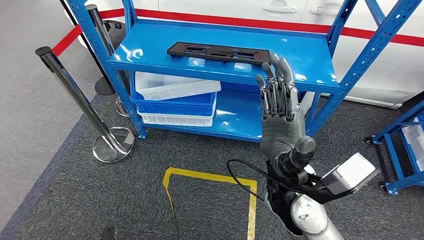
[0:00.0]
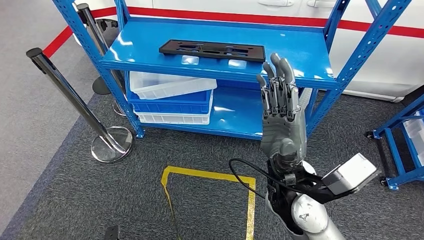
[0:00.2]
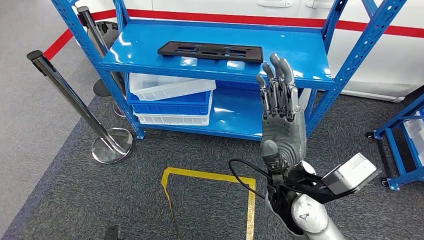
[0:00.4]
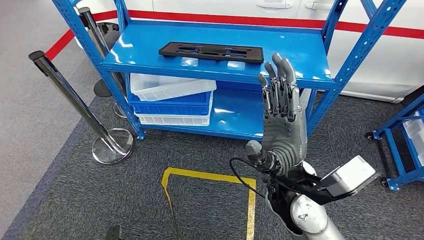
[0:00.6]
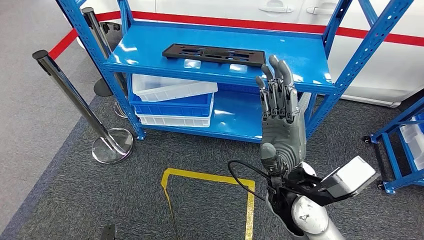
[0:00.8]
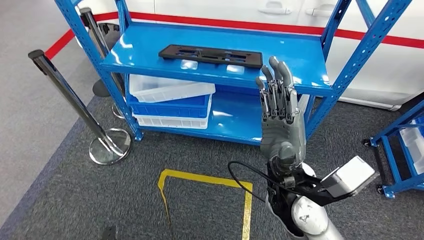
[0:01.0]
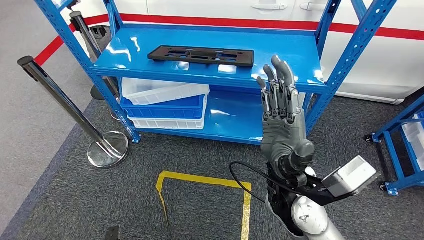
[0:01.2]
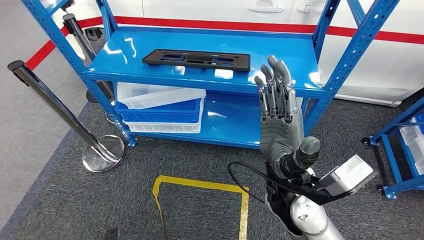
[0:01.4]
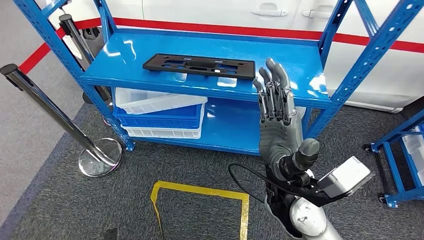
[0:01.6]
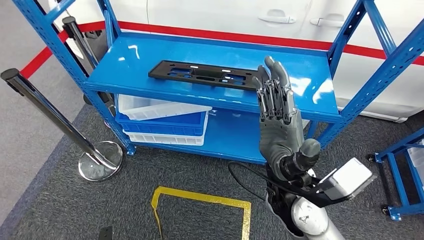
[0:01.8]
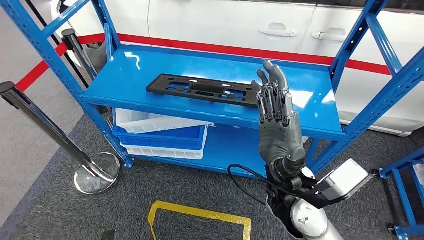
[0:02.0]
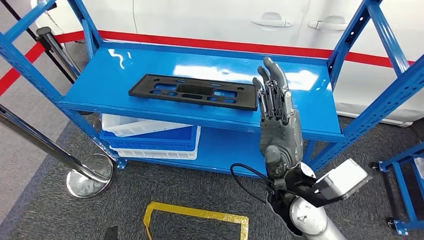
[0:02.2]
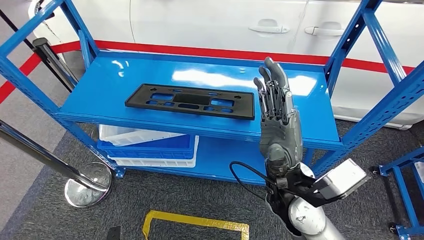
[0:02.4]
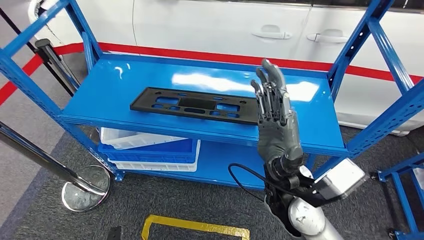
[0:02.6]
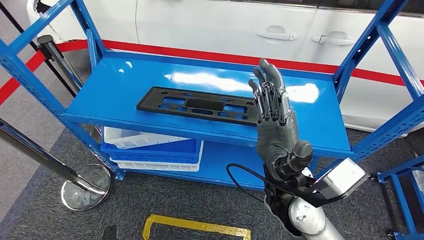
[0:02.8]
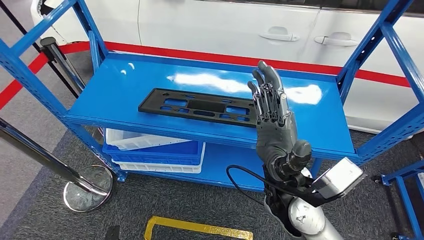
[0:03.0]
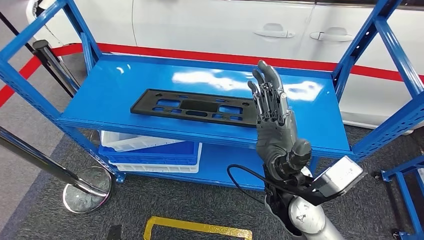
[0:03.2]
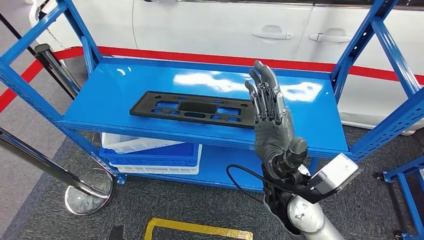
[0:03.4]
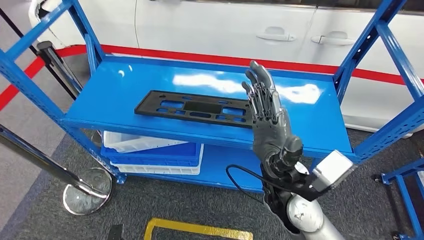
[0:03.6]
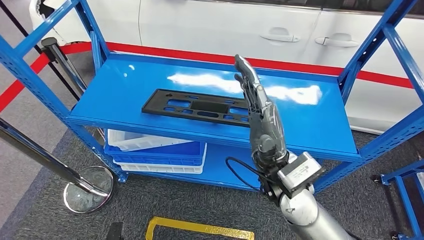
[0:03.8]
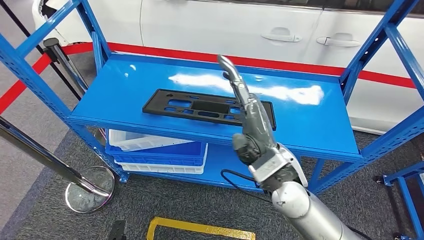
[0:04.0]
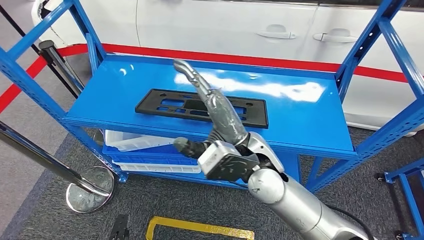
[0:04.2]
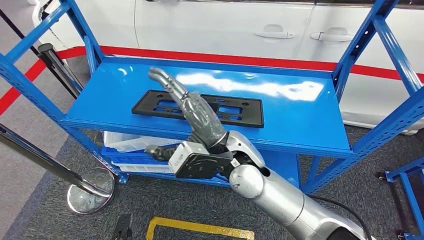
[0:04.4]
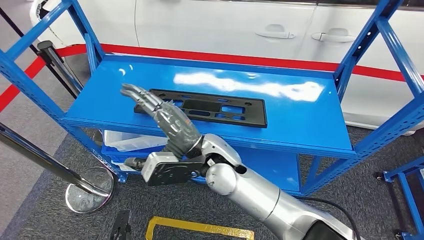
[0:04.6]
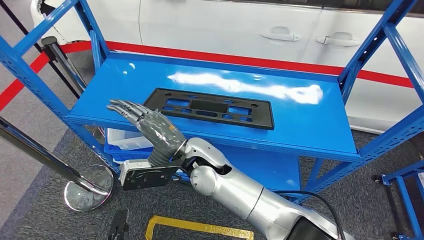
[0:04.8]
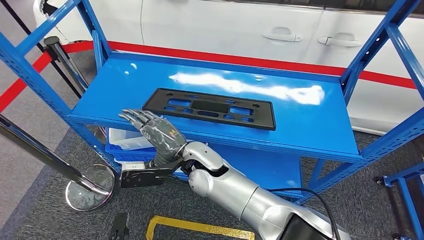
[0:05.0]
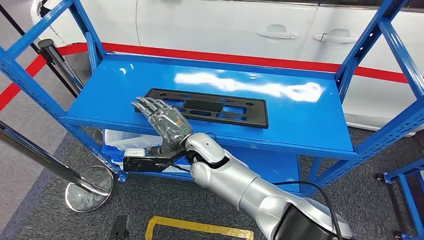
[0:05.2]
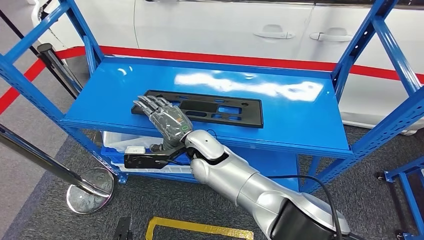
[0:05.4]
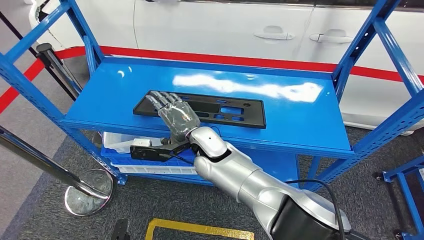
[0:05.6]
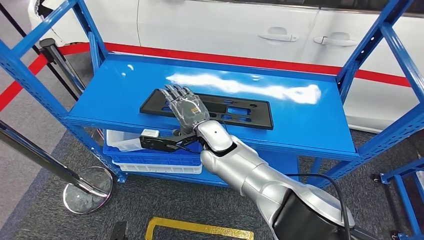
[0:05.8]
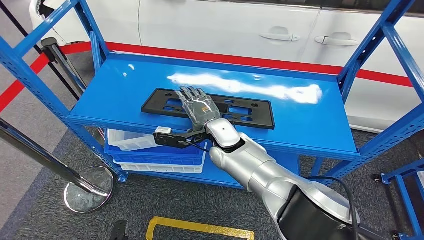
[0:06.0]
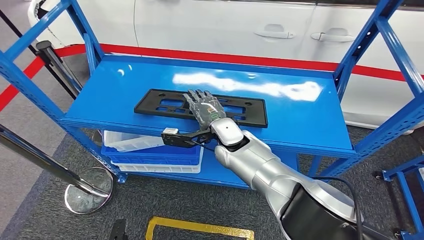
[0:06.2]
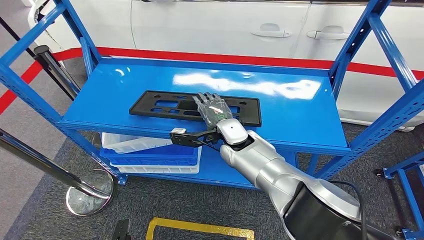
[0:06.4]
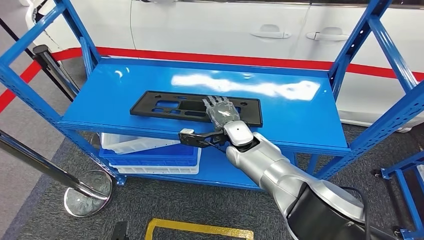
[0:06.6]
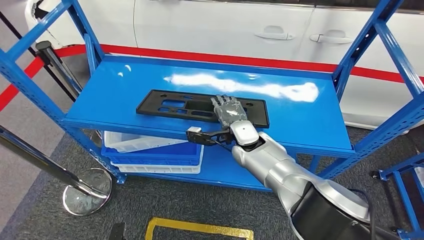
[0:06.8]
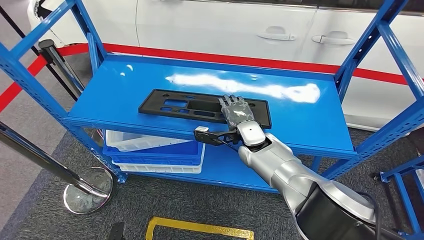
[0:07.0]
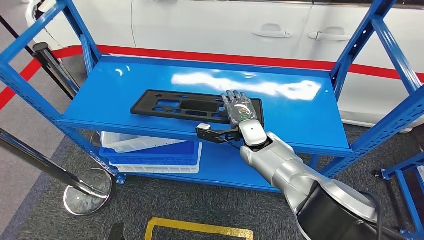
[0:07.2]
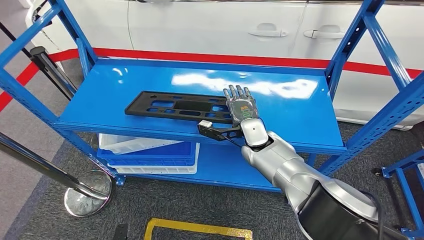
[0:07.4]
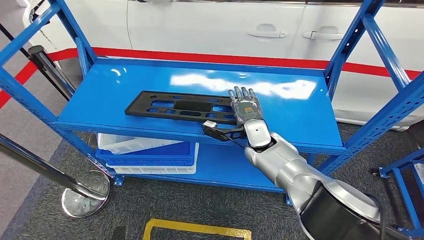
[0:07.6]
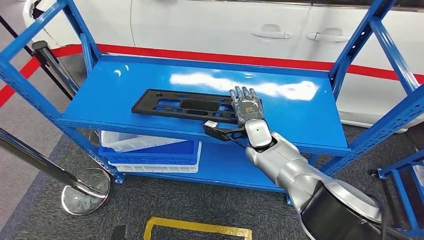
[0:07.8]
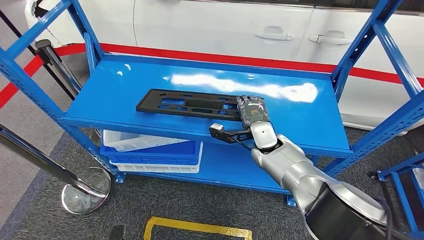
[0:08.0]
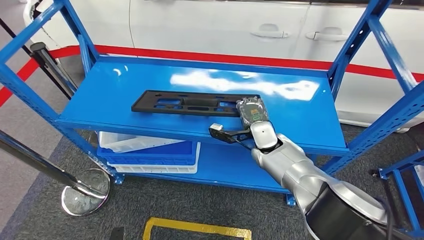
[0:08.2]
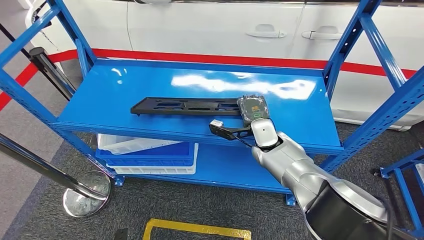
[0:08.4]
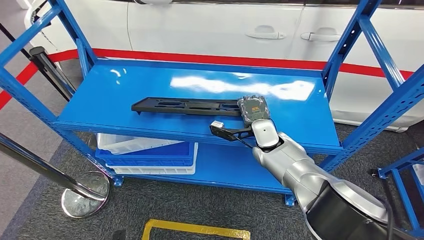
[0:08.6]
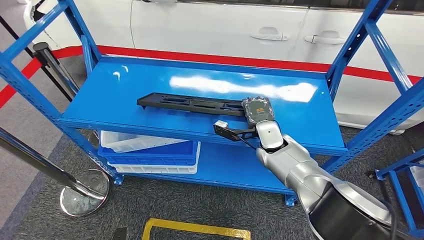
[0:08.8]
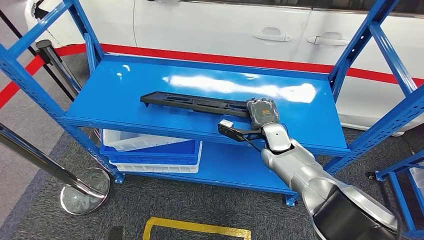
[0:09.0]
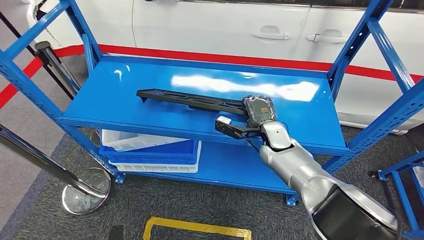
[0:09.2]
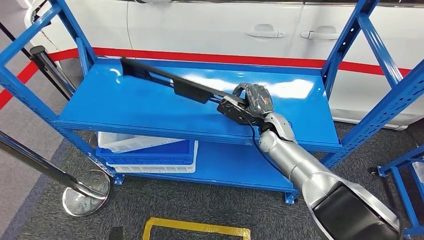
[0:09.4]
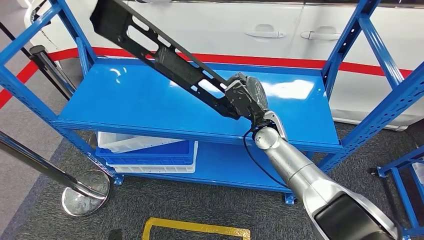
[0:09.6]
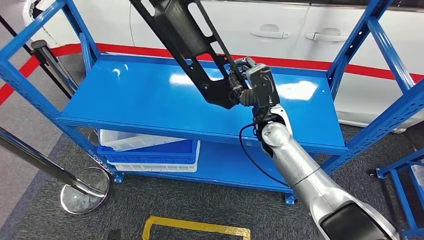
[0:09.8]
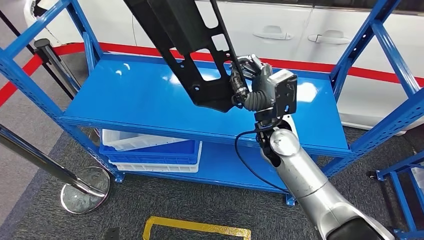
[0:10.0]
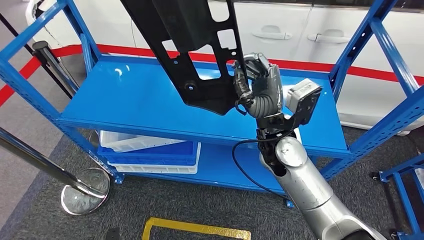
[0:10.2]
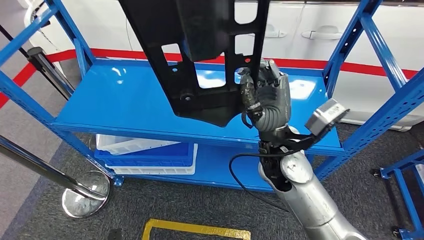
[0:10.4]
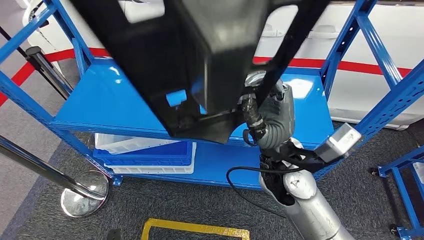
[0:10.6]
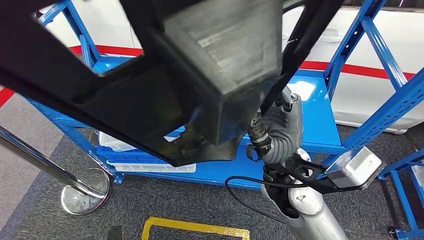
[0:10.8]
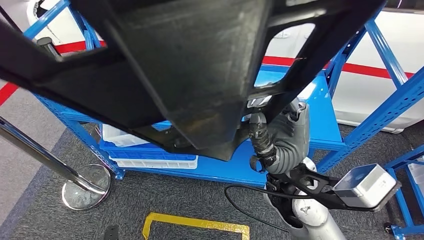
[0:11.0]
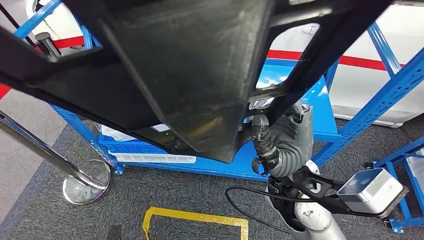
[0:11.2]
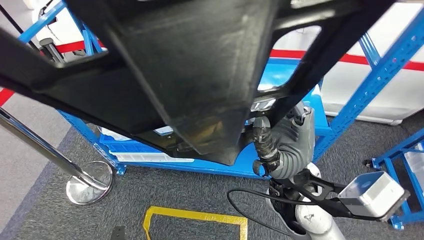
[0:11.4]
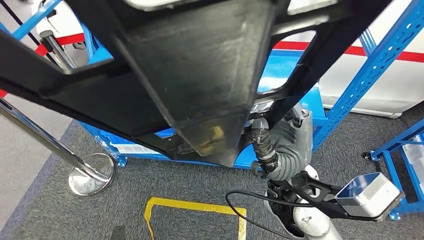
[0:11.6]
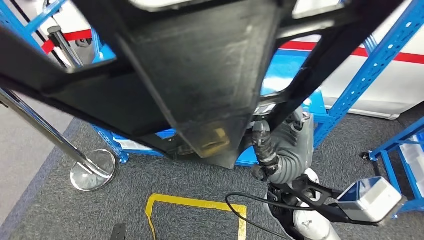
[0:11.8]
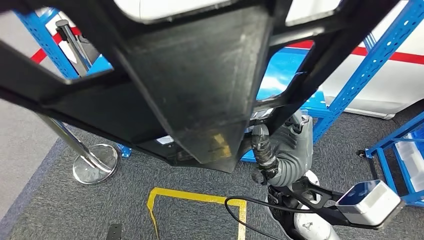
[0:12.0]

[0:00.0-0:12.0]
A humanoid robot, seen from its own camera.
Step, 0:00.0 to 0:11.2: Pick up the large material from the shelf.

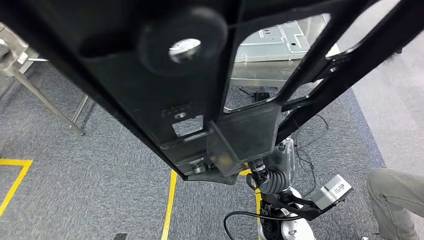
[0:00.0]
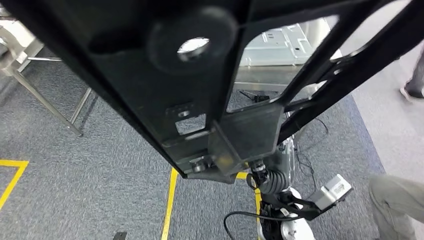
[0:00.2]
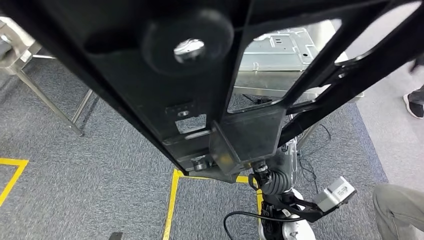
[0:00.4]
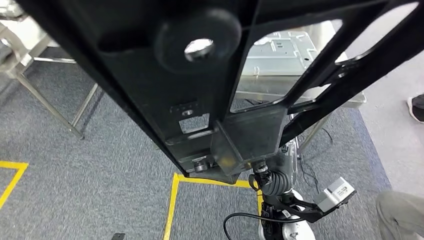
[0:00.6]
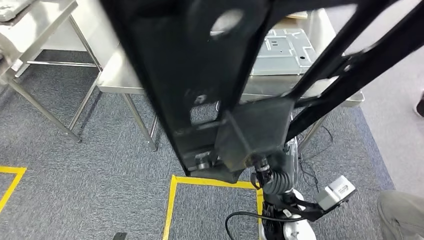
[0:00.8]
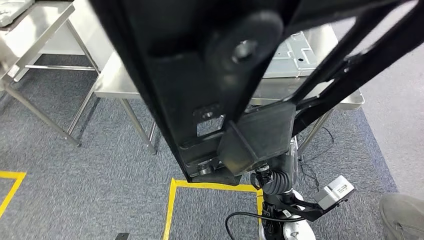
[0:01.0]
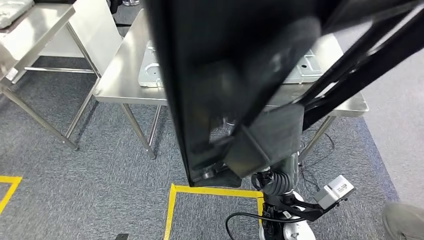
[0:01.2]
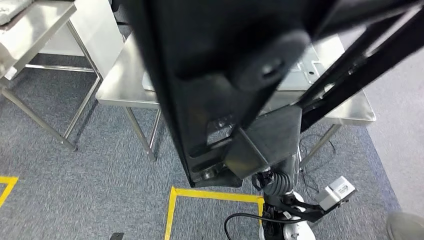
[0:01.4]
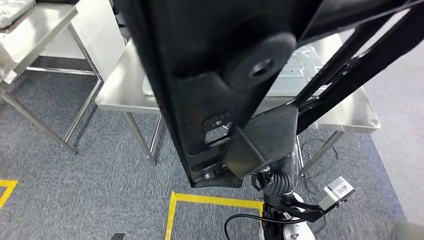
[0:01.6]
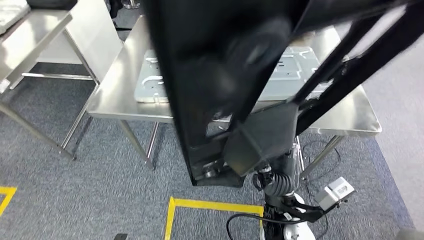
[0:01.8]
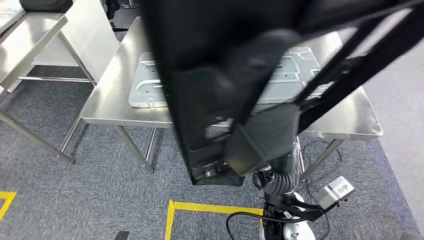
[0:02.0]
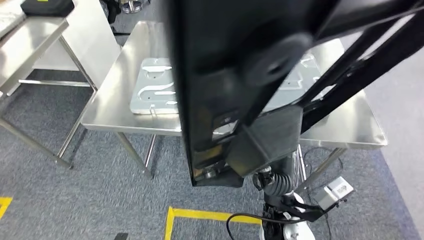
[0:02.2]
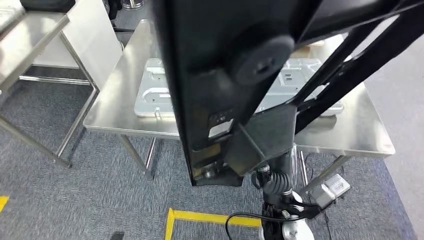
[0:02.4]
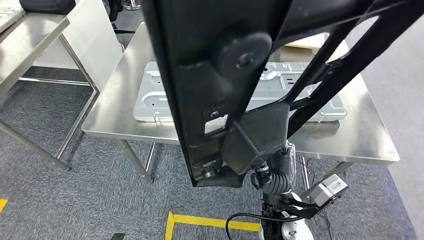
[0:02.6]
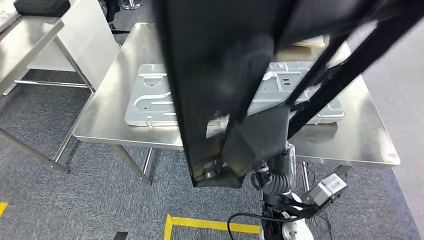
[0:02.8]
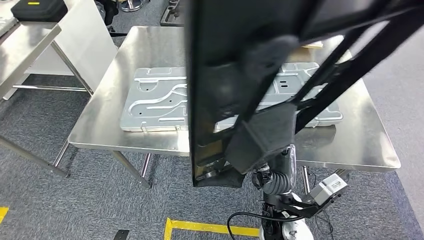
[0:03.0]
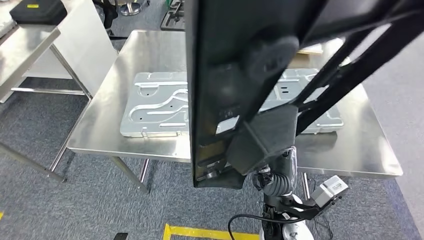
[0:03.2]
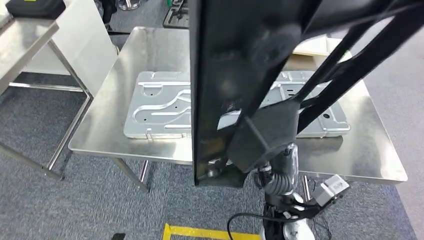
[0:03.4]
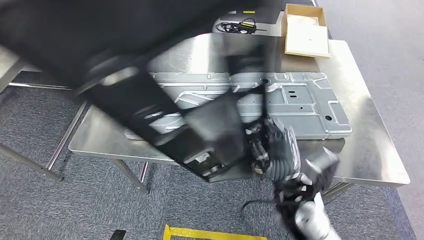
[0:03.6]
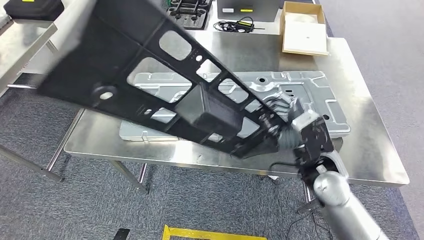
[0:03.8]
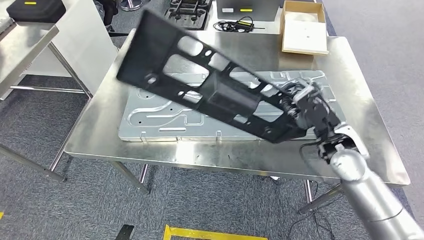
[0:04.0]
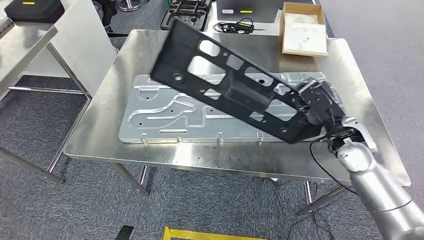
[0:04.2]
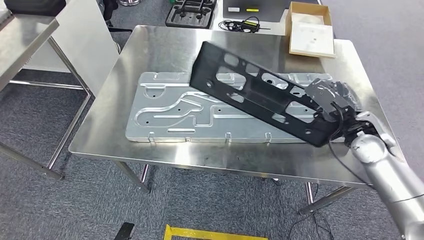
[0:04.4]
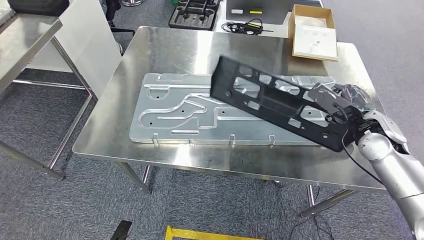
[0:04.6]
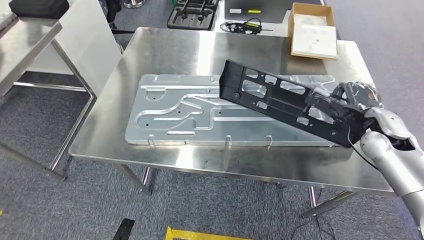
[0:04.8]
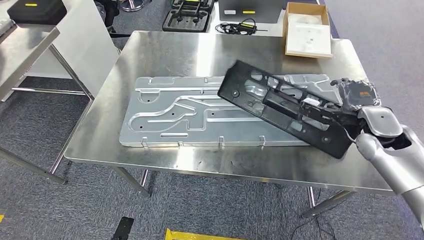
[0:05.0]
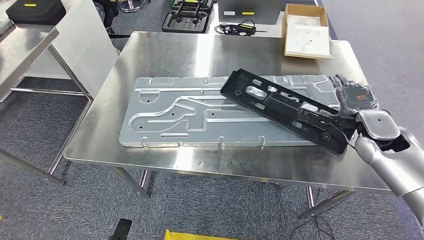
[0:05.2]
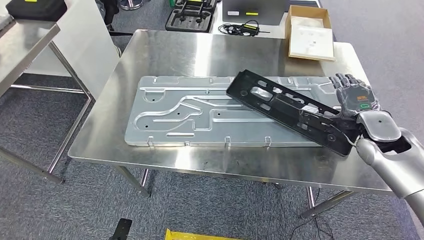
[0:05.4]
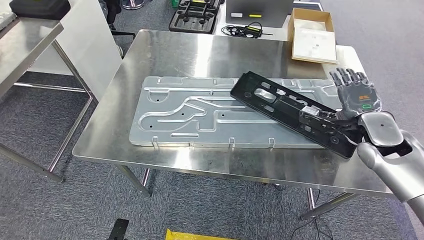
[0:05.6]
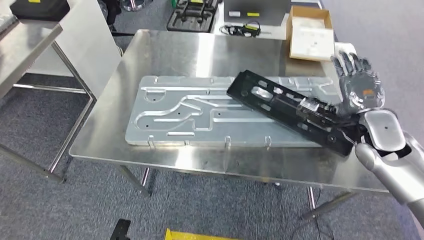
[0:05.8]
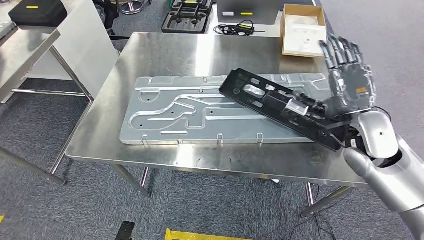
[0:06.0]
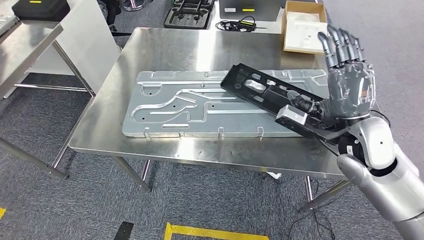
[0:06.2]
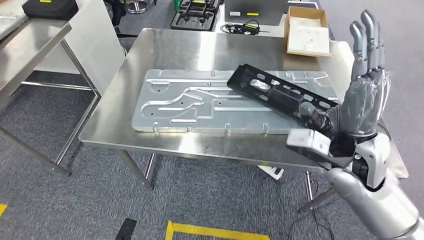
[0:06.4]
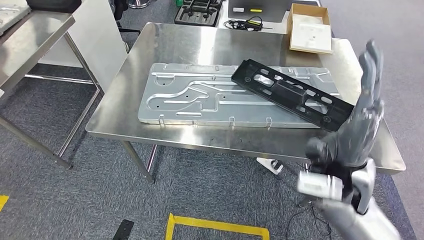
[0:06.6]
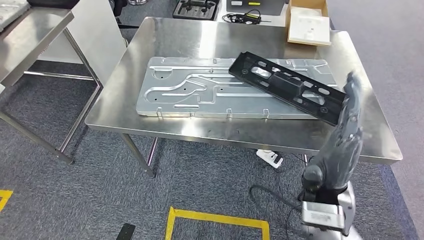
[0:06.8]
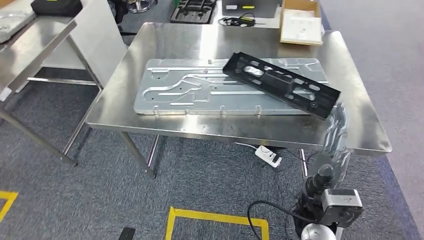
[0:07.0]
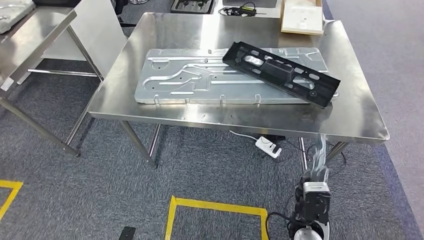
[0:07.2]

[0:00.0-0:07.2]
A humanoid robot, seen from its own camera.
Step, 0:00.0 to 0:02.4: Move the large material to the workbench.
